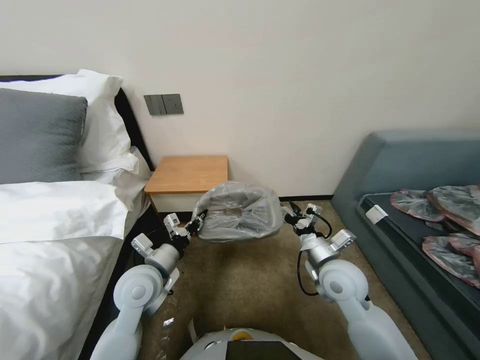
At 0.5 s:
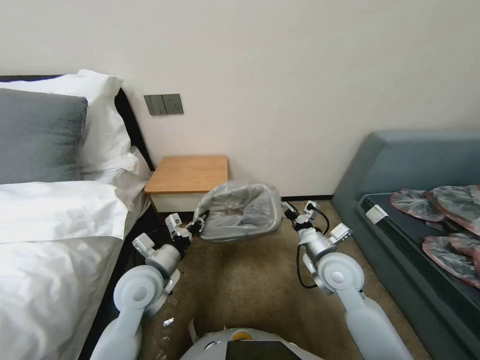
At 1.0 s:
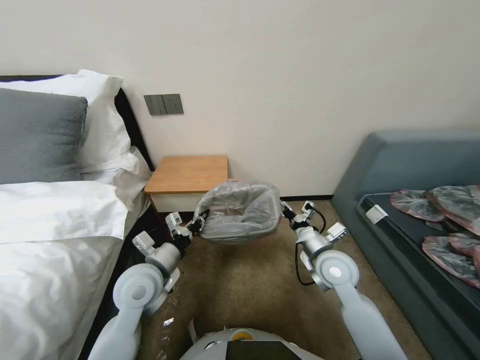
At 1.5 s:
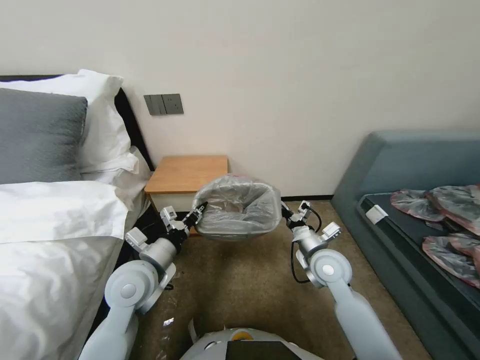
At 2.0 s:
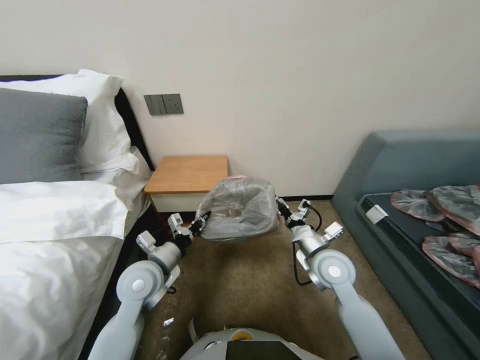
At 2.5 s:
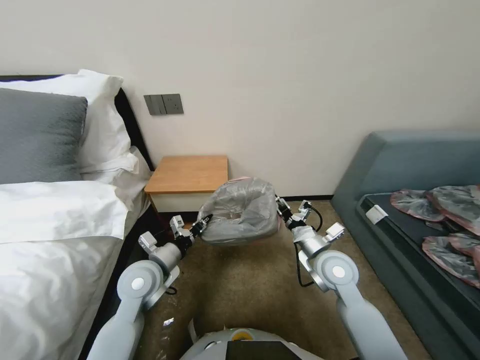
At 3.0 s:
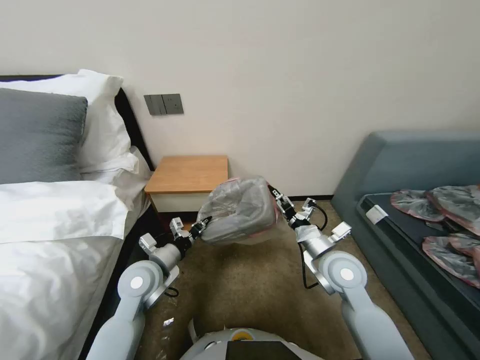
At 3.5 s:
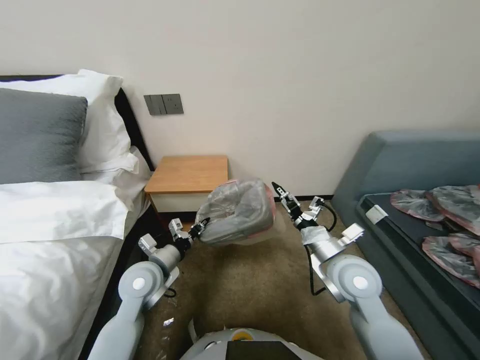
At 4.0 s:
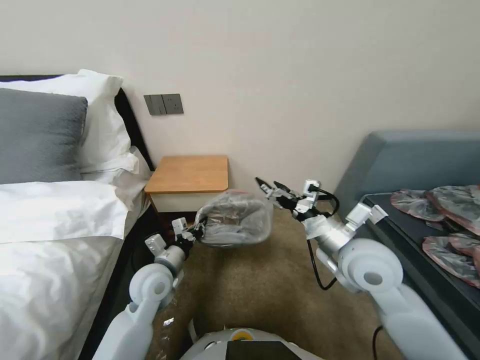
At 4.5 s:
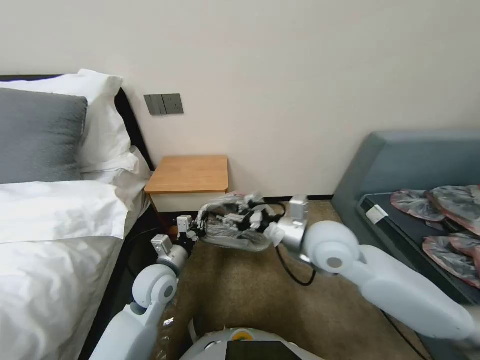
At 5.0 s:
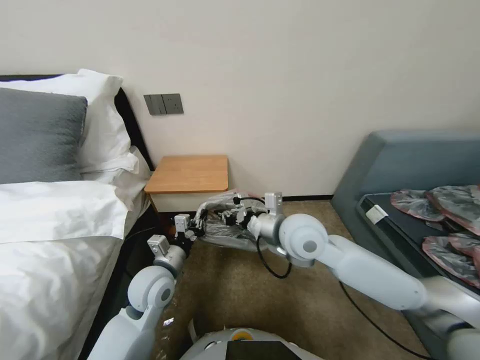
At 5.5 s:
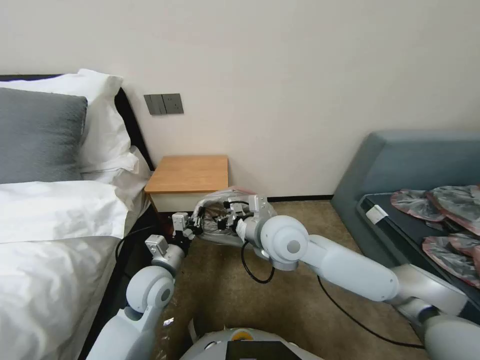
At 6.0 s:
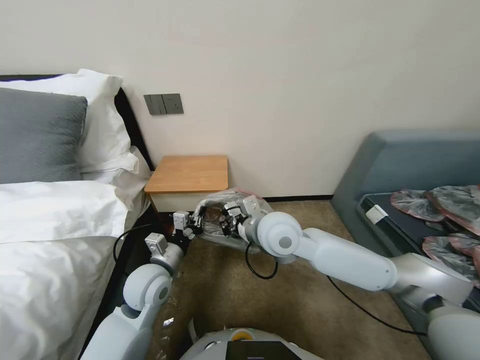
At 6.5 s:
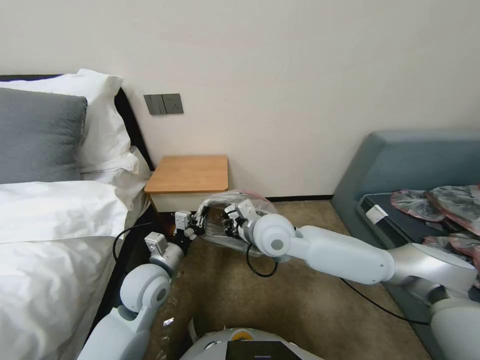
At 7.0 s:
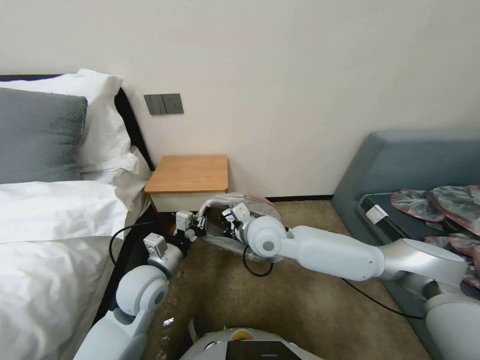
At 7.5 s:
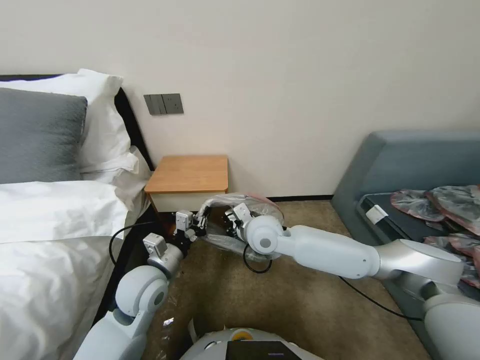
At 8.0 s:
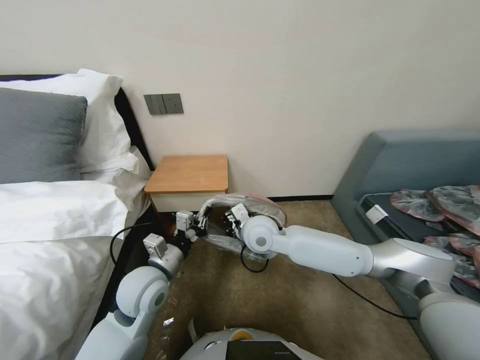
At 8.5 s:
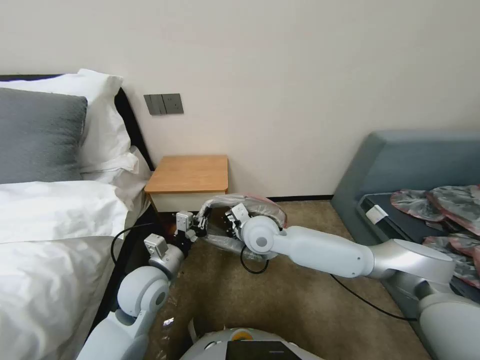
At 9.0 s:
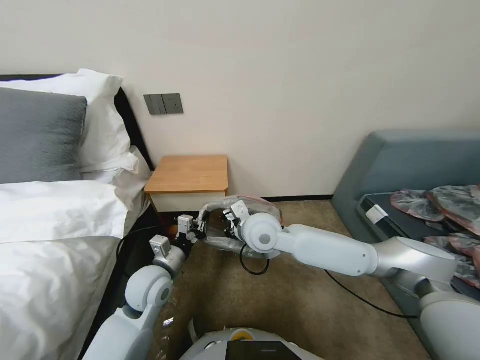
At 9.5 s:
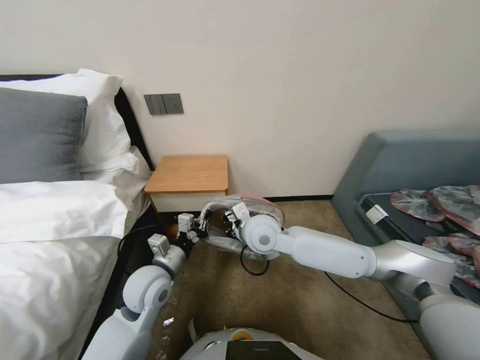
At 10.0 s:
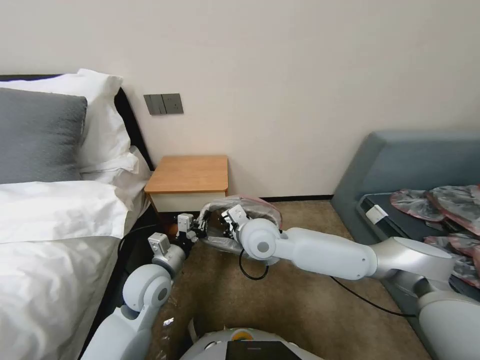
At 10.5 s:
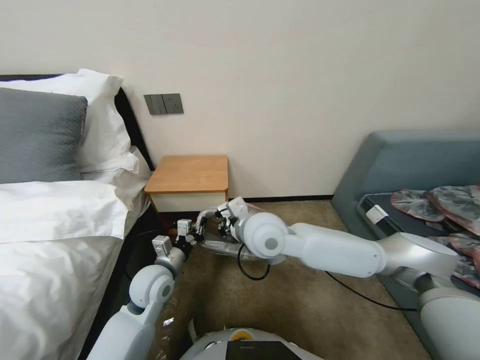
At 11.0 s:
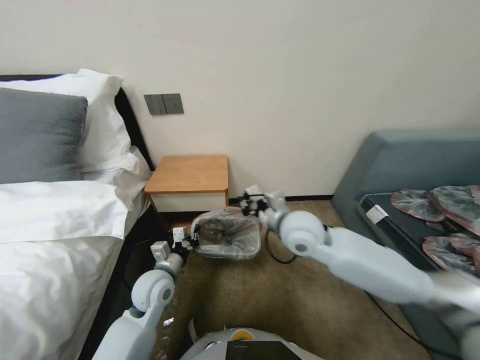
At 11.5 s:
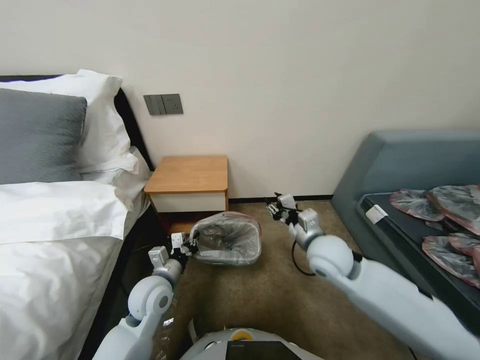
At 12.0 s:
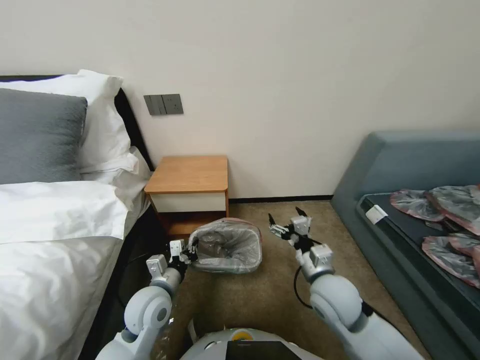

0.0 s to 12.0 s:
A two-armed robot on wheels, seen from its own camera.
Task of the whole recording: Pick up the garbage bag from the table and place it over the trash can.
2.0 to 4.0 s: The right gripper heads upward, covering some 10 cm.
4.0 to 6.0 s: The right gripper heads to the left and forward, covering about 15 cm, and closes its fingers.
6.0 to 8.0 s: The right gripper goes about 5 cm downward.
8.0 to 10.0 s: There are only small adjustments of the grippers.
10.0 to 12.0 s: The left gripper ends up some 5 cm from where it was. The right gripper heads to the right, backward and downward, covering some 20 cm, and opens up.

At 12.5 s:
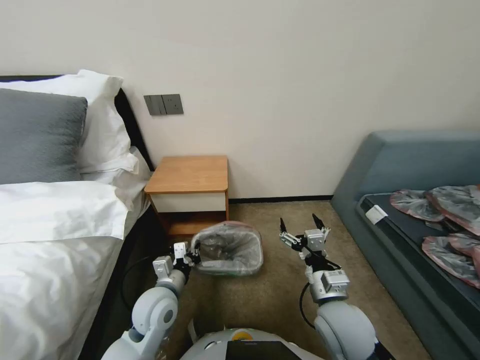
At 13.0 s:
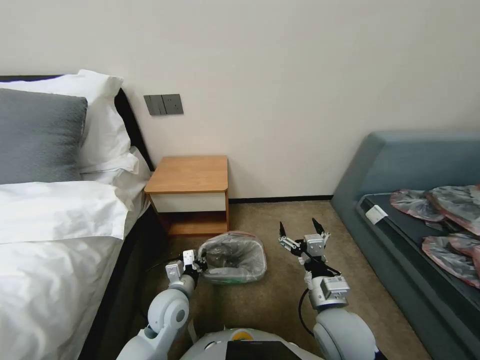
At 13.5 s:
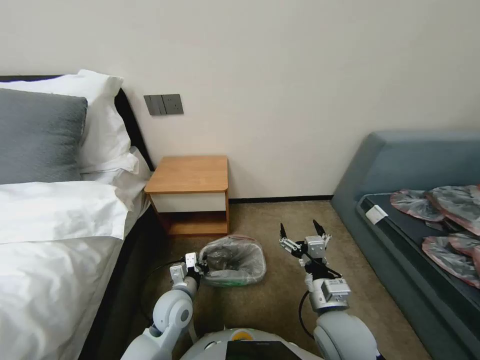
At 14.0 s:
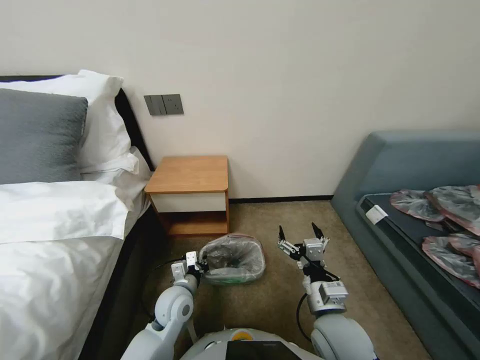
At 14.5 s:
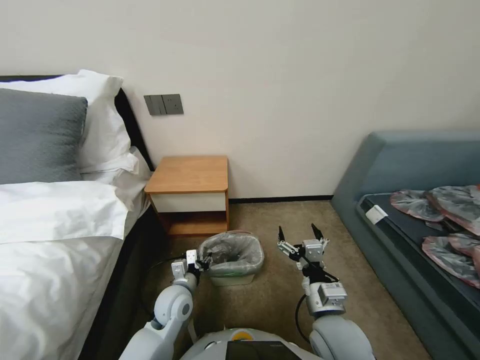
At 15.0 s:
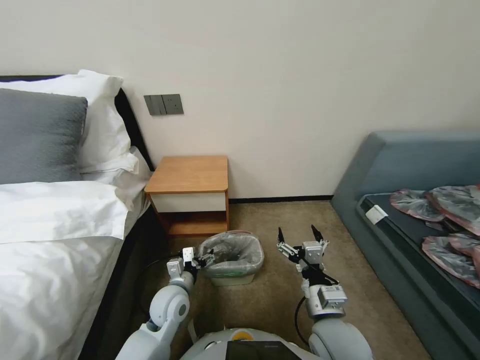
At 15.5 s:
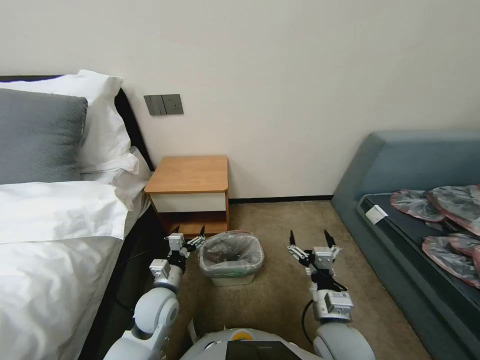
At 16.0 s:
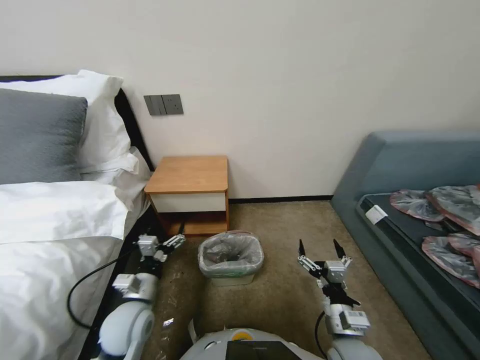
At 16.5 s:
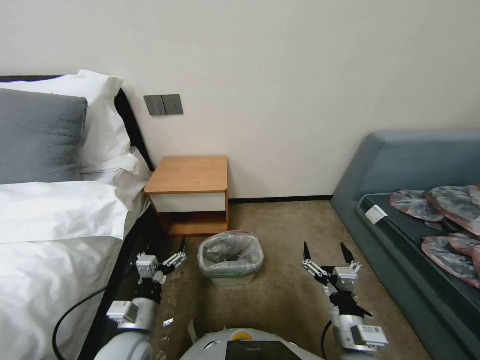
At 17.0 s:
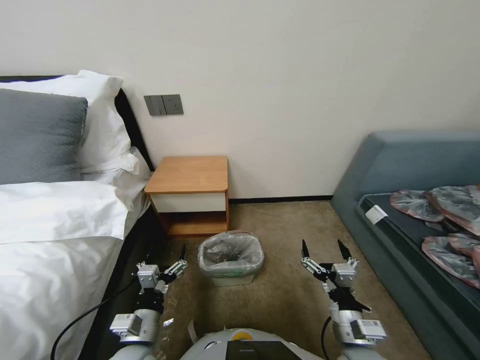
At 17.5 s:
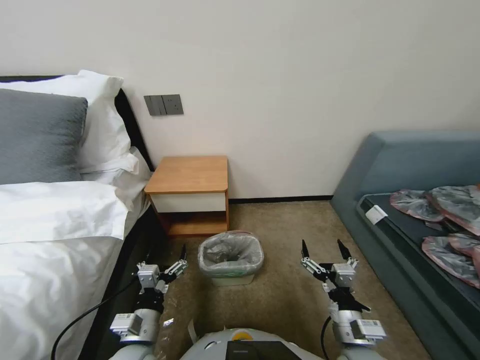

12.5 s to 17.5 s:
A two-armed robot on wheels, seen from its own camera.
Task of the whole recording: Pick up the garbage bag from the table and place it over the trash can.
12.5 to 15.0 s: The left gripper heads downward, covering some 5 cm, and opens up.
15.0 to 17.5 s: The left gripper heads backward, covering about 15 cm. The right gripper heads to the right, covering about 5 cm.
